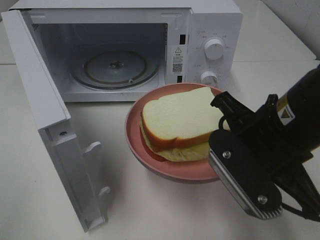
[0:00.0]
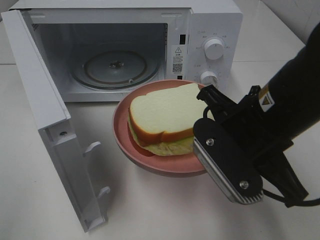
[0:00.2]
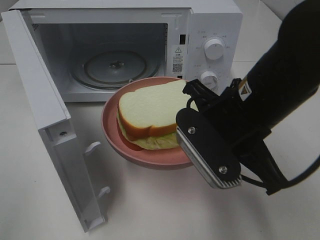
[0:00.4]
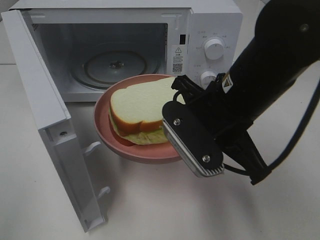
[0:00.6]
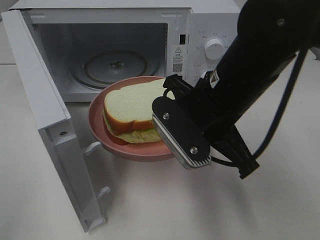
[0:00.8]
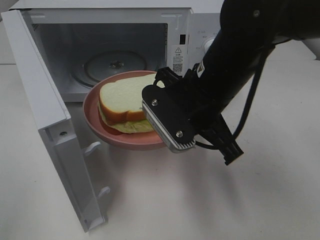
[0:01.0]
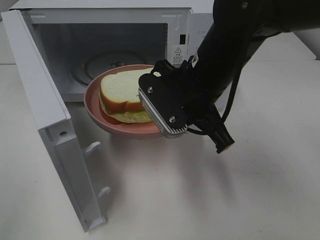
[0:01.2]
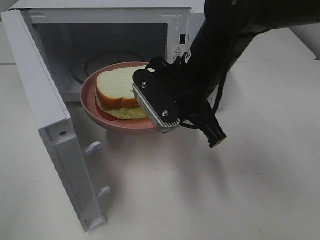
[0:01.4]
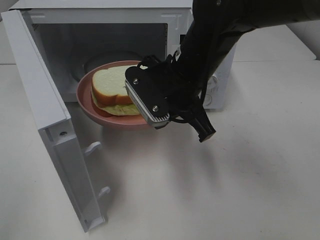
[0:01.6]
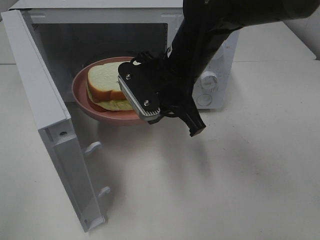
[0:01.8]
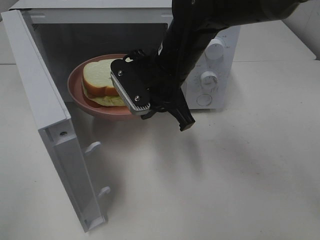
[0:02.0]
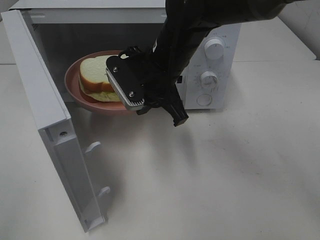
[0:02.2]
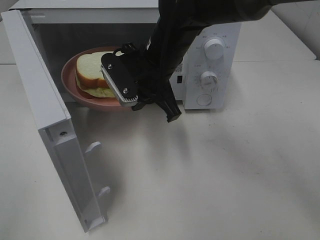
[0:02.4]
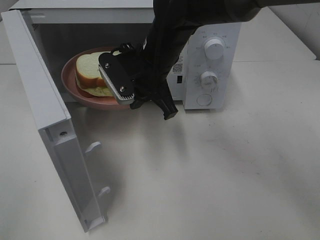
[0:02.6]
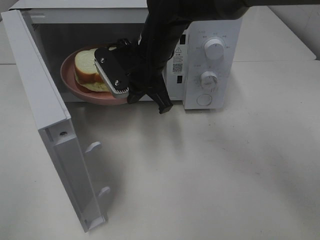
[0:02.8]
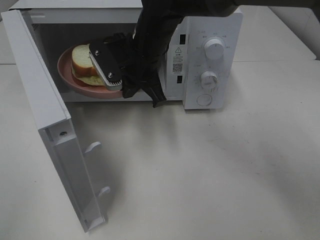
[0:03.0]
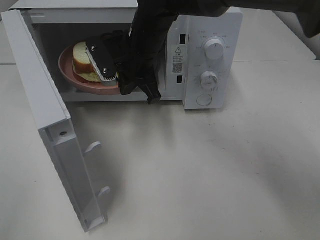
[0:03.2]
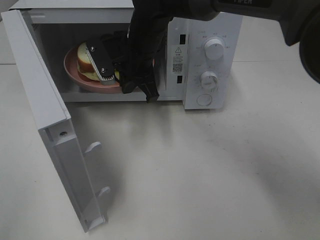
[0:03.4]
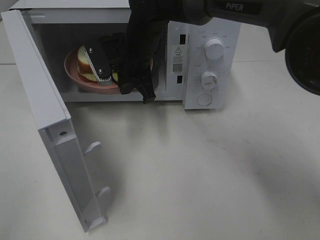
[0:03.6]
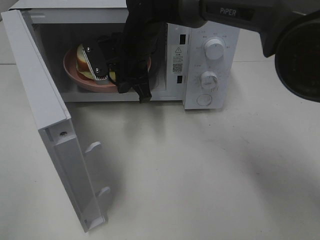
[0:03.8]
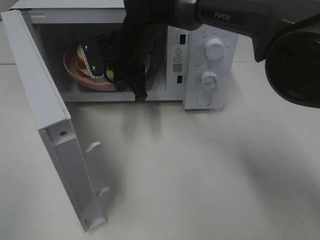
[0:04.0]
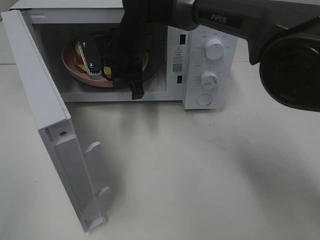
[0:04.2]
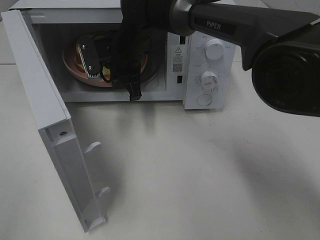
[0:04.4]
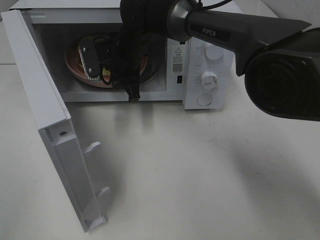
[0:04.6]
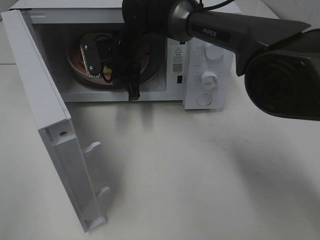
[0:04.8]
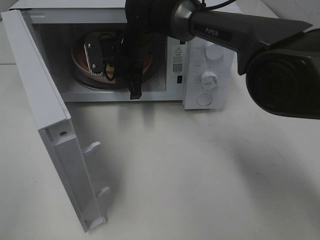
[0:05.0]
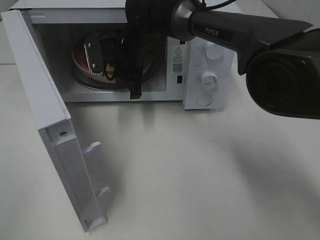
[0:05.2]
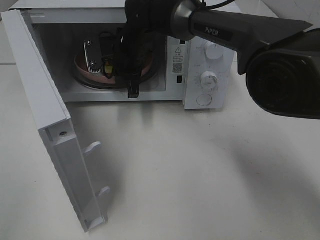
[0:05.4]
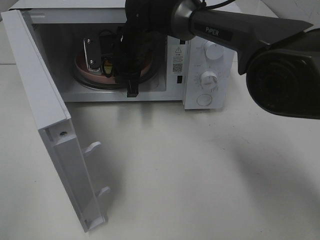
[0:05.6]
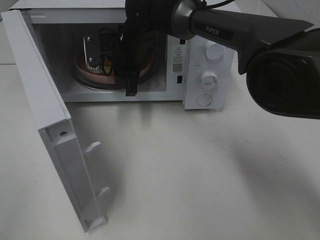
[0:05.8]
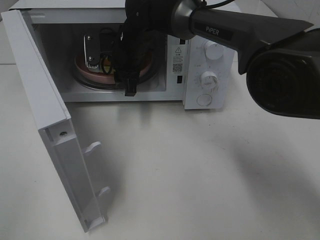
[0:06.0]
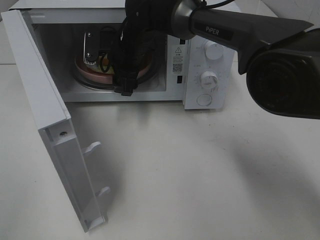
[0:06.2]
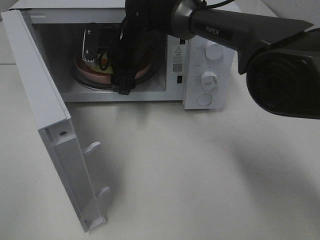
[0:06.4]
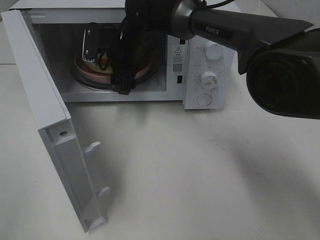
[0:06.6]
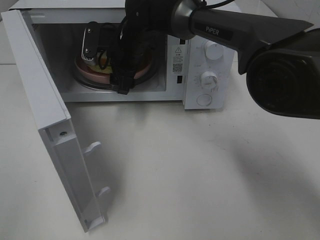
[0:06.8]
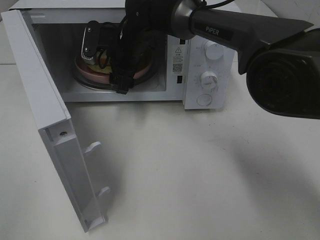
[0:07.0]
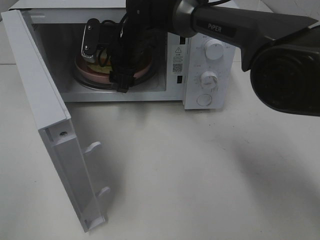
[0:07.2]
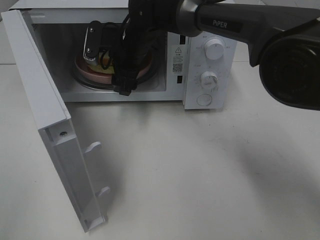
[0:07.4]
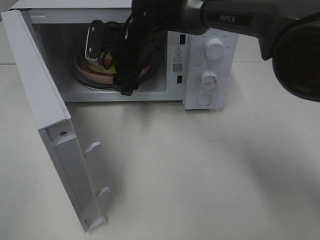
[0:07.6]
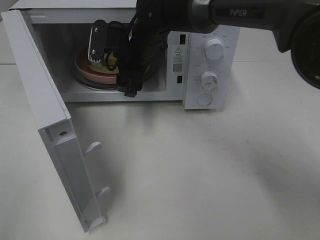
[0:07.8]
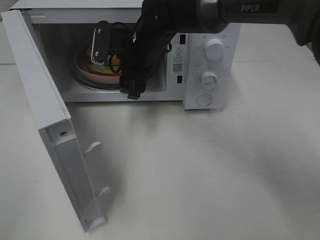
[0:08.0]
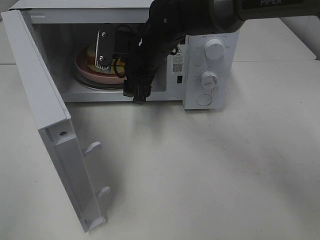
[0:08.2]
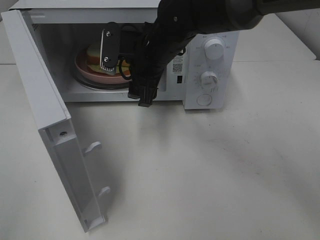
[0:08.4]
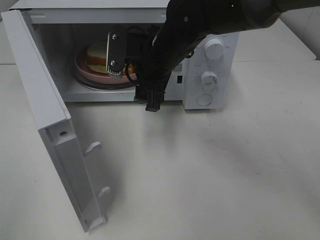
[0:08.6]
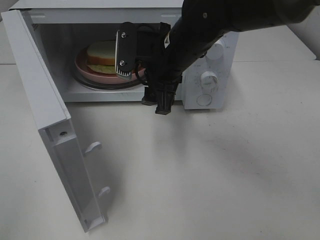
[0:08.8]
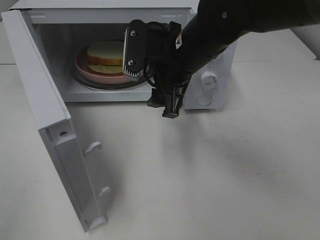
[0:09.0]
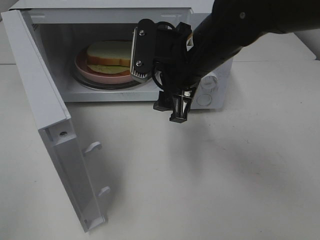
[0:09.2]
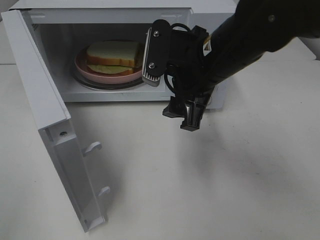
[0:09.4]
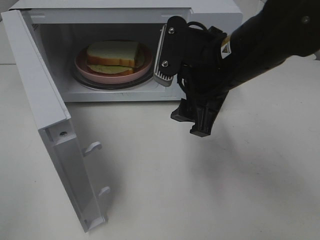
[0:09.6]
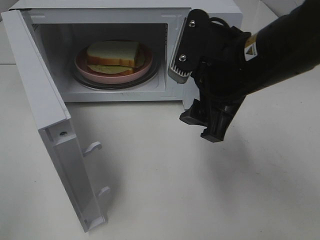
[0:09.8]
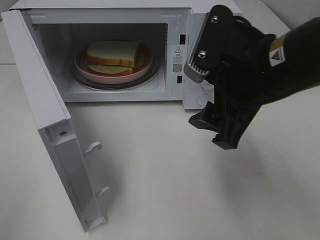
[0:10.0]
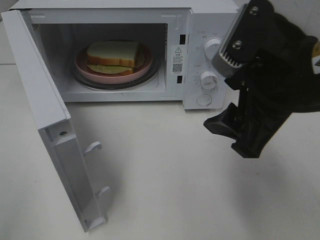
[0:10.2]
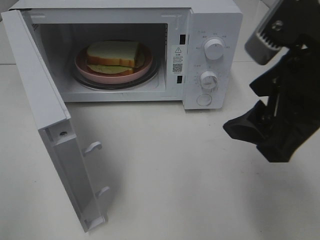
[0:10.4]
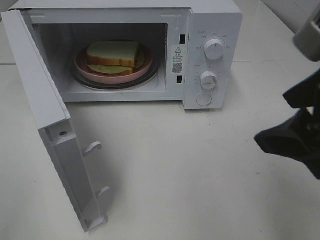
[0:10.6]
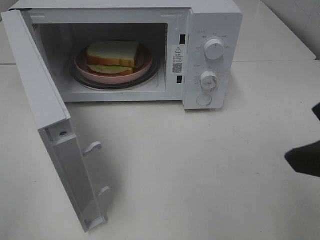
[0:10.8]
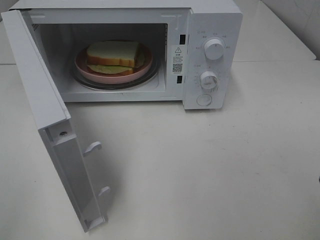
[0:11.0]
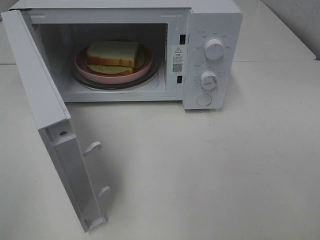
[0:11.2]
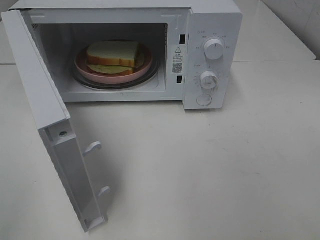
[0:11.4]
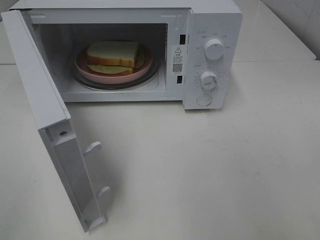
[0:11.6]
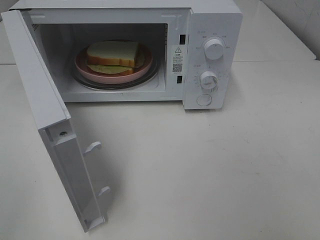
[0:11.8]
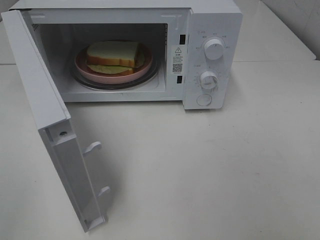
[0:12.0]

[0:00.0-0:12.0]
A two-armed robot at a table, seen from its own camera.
Task of the whole recording: Heat Sandwich.
Step, 0:00.0 to 0:07.6: Right hand: place the plate in the microwave.
0:00.0 to 0:01.6: The right gripper shifts about 15 cm forward and to the left.
0:01.6 to 0:03.0: The right gripper goes about 10 cm forward and to the left.
0:03.0 to 0:04.4: The right gripper goes some 5 cm forward.
0:04.4 to 0:06.0: The right gripper opens up.
0:06.0 to 0:07.6: The grippers move only a little.
0:07.6 to 0:09.0: The right gripper travels backward and to the right by approximately 15 cm.
0:09.0 to 0:10.4: The right gripper moves backward, to the right and upward, approximately 20 cm.
0:10.4 to 0:12.0: The right gripper travels backward and to the right by about 20 cm.

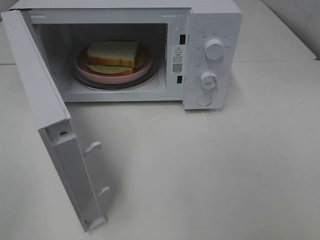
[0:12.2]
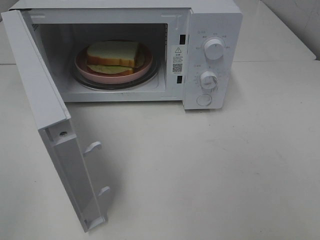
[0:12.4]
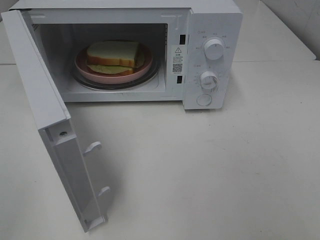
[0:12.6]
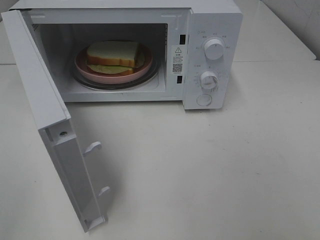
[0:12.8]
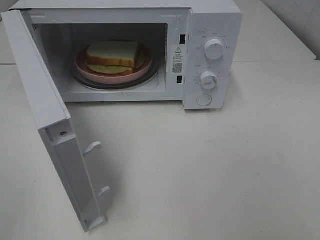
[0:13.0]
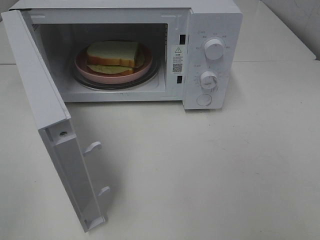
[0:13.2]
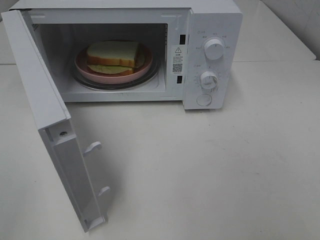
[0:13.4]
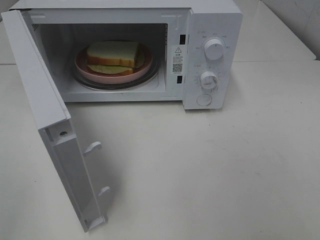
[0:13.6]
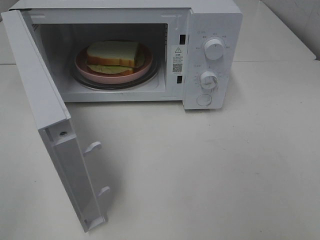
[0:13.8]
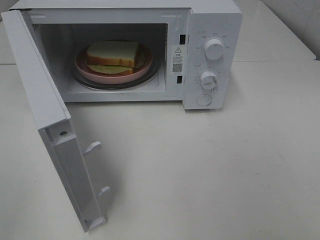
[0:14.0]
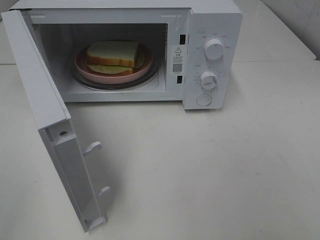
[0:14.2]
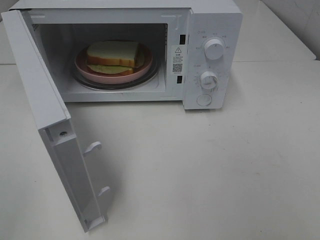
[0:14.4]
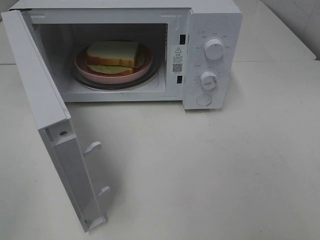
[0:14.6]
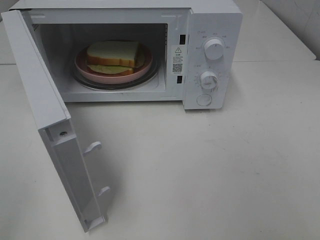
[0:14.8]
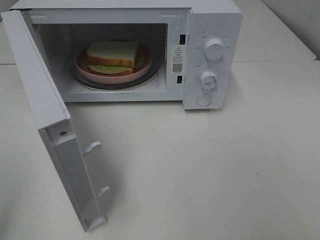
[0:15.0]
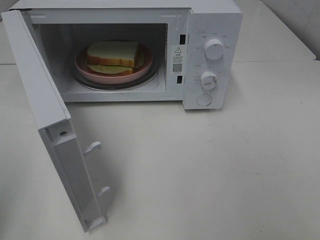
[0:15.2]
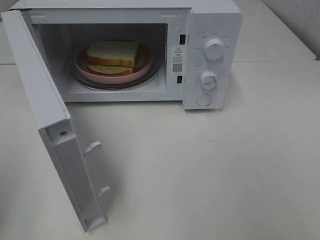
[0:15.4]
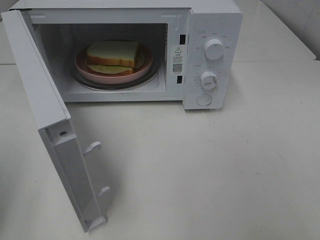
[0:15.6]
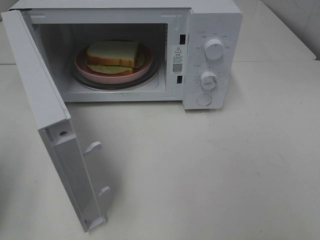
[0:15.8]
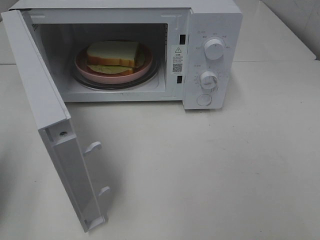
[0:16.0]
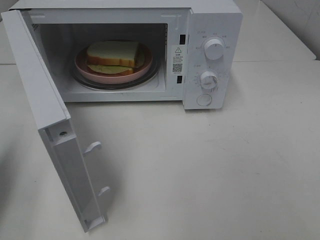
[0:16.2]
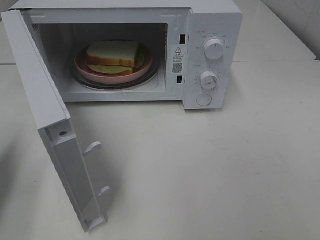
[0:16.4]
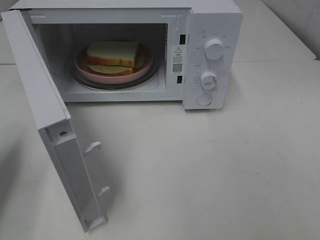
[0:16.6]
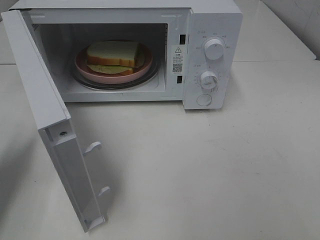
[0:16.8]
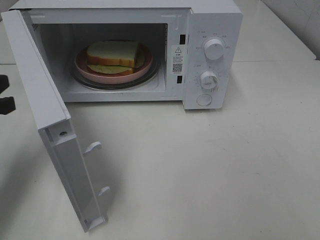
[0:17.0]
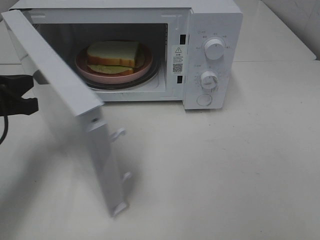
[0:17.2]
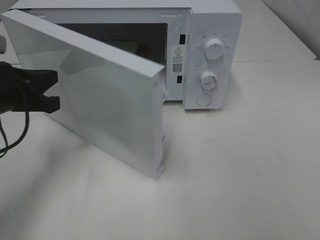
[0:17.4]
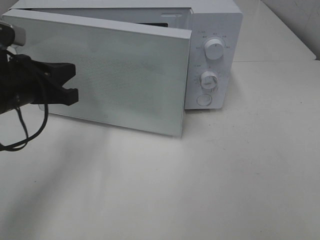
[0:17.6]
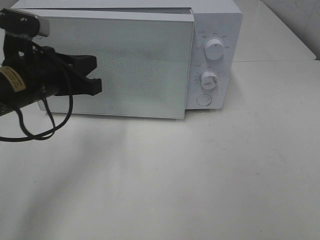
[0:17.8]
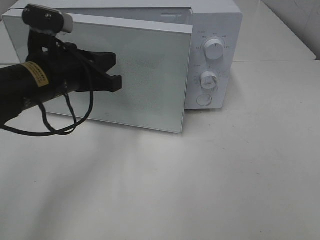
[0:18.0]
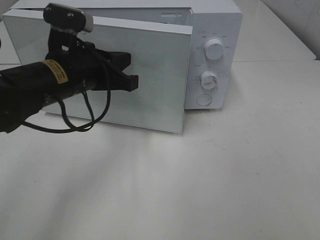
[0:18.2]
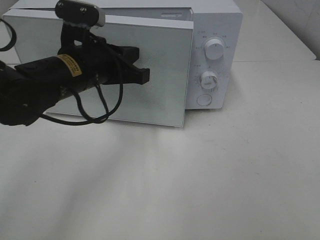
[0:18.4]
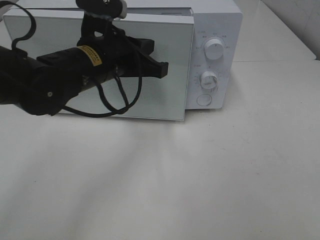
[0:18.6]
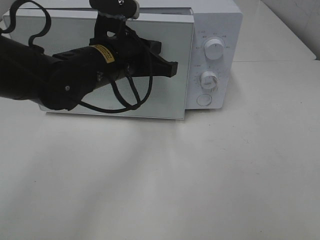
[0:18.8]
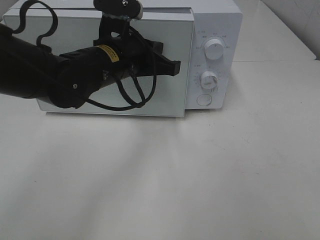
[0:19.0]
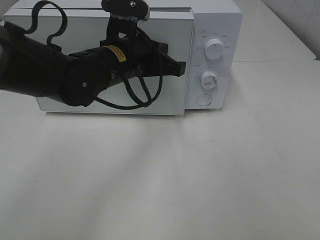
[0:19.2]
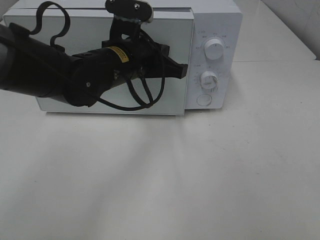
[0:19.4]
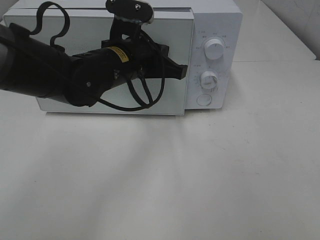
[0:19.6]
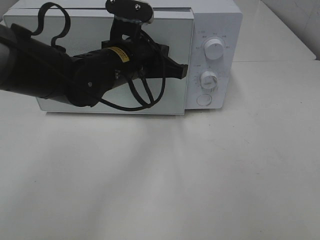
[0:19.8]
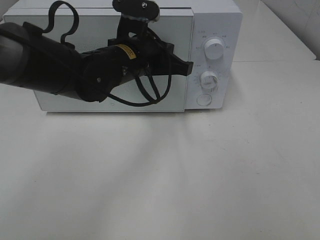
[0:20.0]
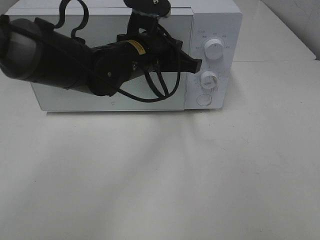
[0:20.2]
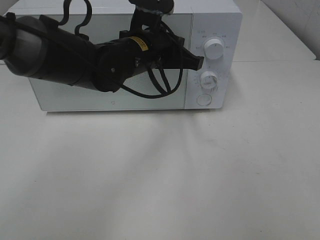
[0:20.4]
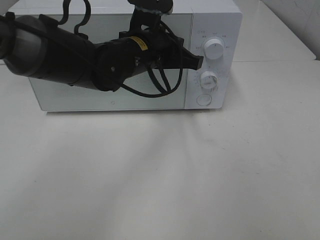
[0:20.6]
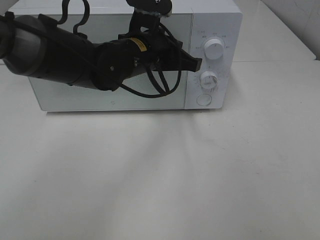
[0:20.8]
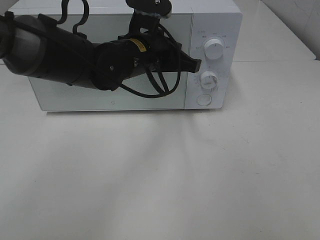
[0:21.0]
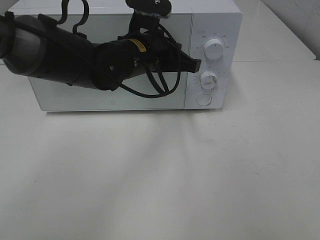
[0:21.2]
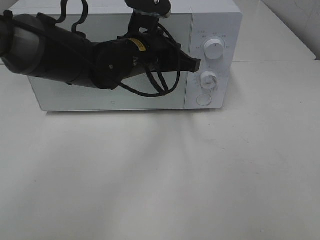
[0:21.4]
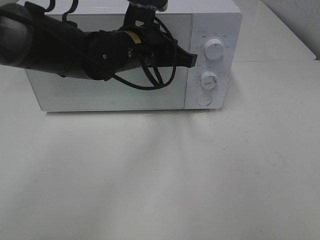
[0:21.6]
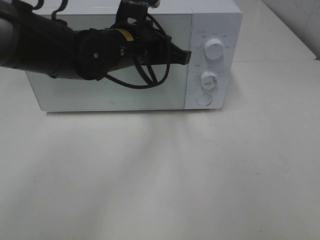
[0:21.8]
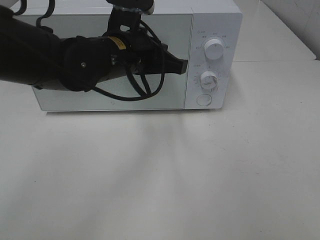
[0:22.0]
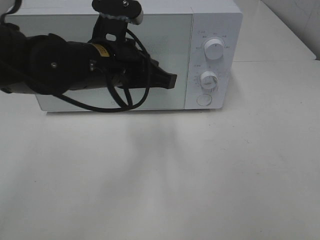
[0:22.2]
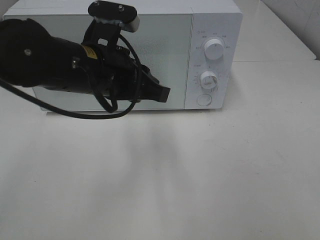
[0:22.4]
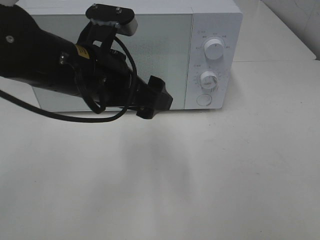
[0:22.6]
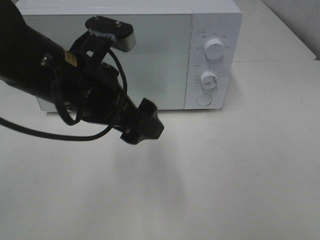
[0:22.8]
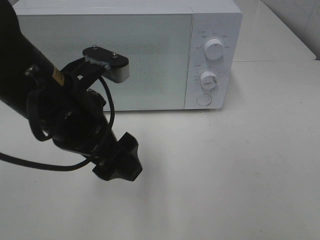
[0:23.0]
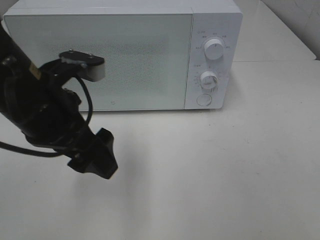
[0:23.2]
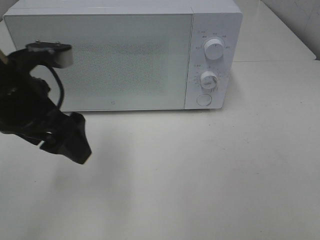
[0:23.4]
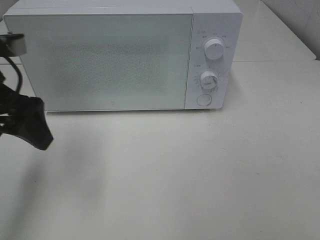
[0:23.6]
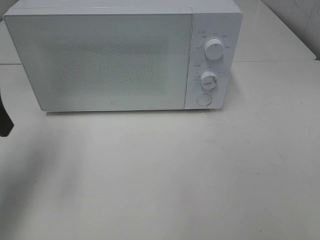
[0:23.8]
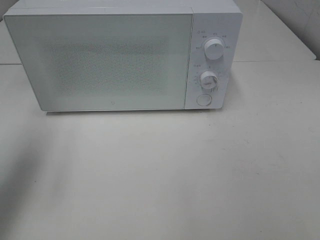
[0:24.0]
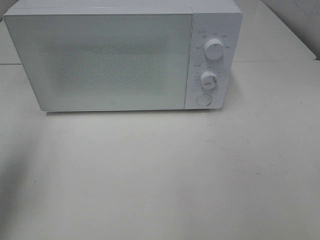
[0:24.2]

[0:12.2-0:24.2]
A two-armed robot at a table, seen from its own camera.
Task of the whole recording: Heat Sandwich.
Step, 0:12.2 to 0:22.2: Left hand: close the microwave door.
0:15.2 to 0:16.6: The left gripper travels forward and downward by approximately 15 cm, and closes.
0:16.6 to 0:18.2: The left gripper travels to the right by some 20 cm.
0:18.2 to 0:19.8: The left gripper is displaced to the right by about 5 cm.
0:19.8 to 0:21.2: The grippers move only a little.
0:21.2 to 0:22.6: The left gripper heads backward and to the left, covering about 10 cm, and opens.
0:22.6 to 0:24.2: The left gripper is displaced to the left by approximately 25 cm.
